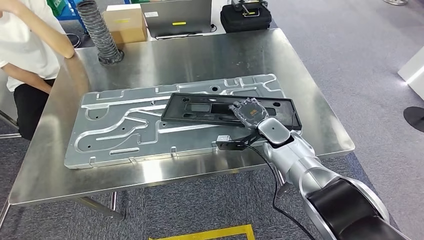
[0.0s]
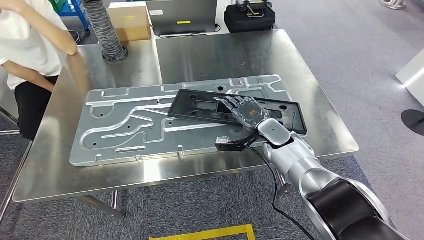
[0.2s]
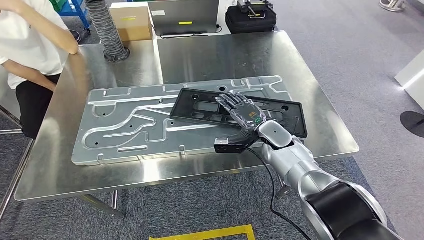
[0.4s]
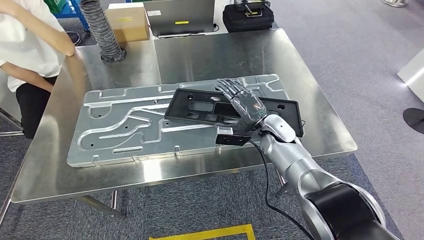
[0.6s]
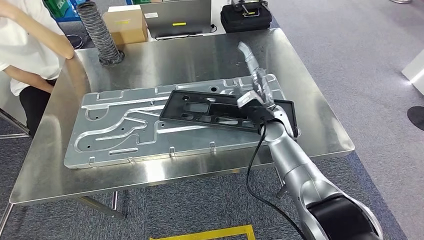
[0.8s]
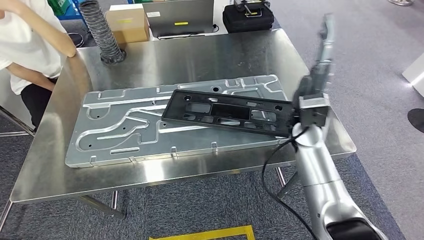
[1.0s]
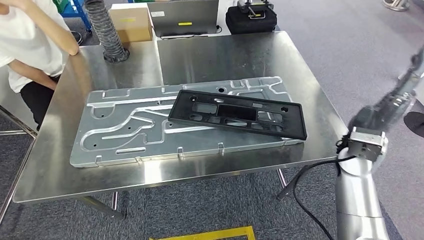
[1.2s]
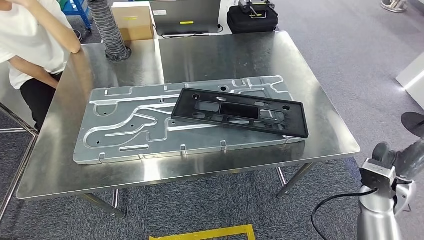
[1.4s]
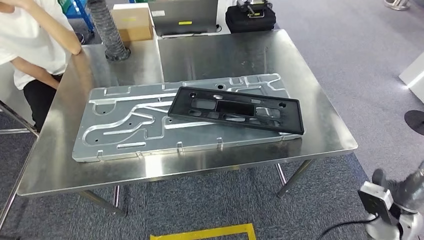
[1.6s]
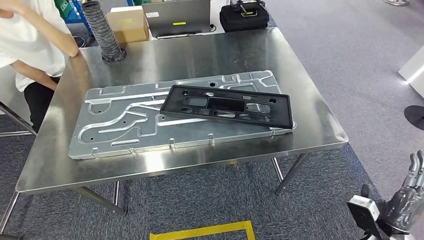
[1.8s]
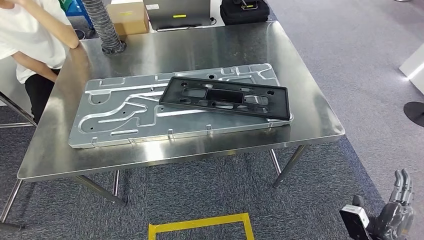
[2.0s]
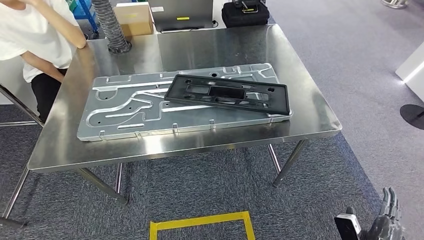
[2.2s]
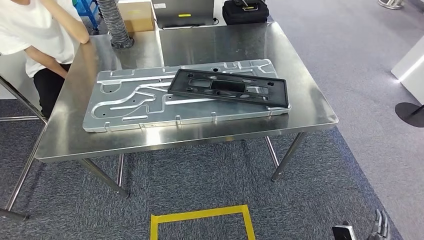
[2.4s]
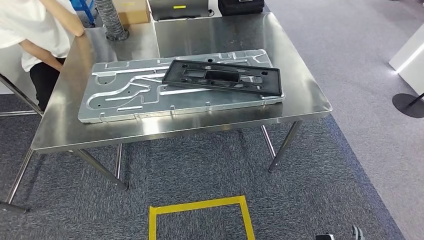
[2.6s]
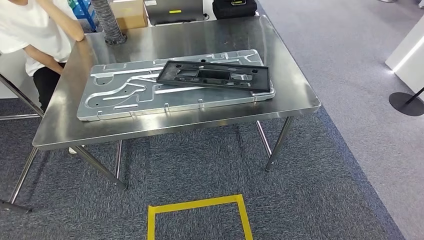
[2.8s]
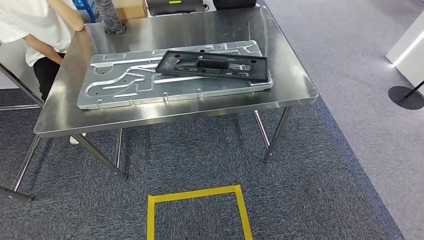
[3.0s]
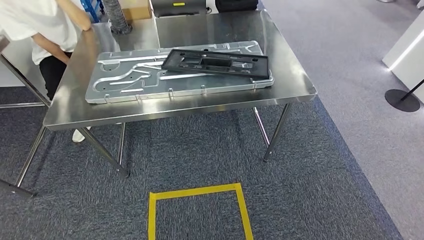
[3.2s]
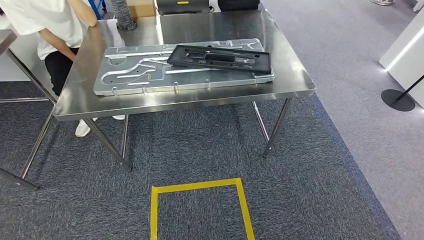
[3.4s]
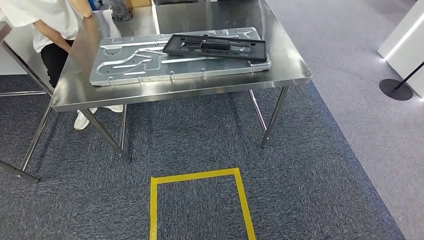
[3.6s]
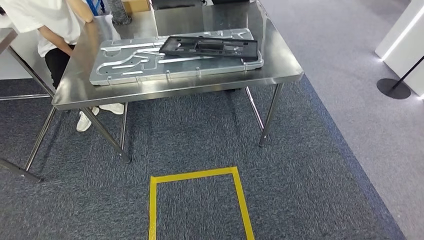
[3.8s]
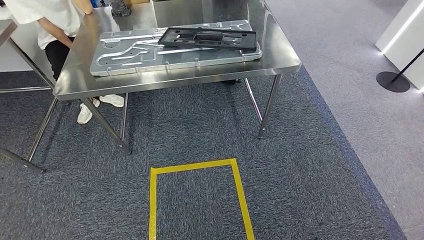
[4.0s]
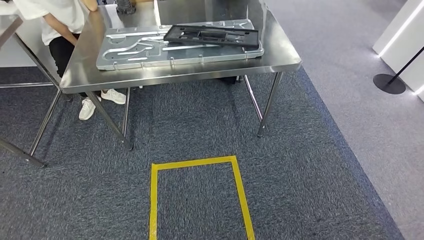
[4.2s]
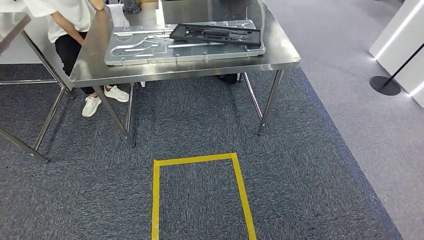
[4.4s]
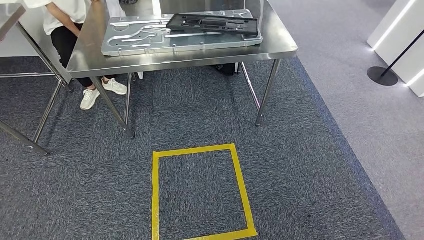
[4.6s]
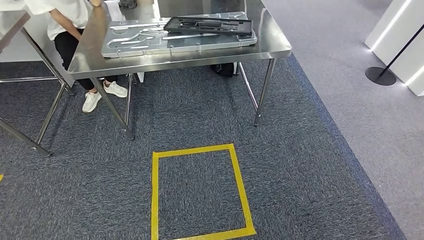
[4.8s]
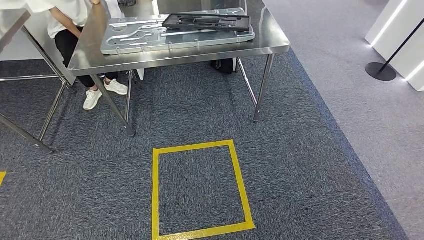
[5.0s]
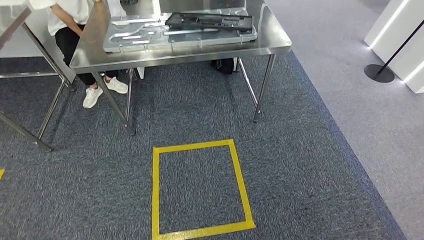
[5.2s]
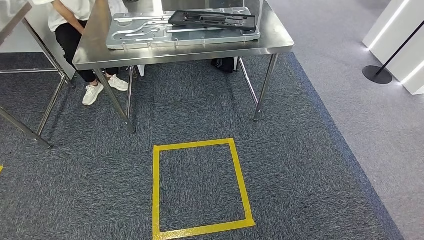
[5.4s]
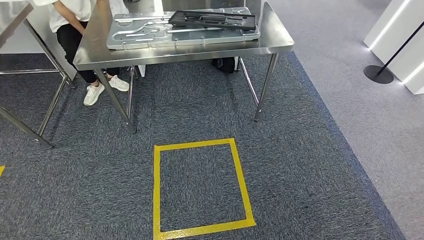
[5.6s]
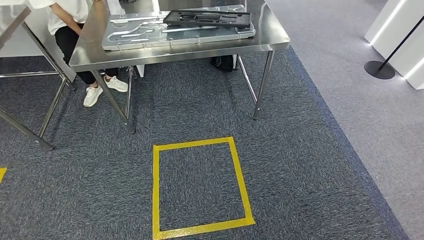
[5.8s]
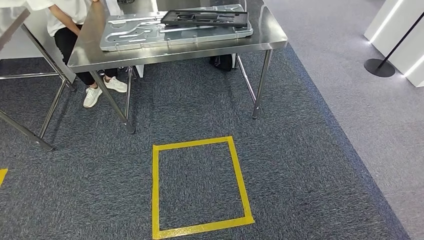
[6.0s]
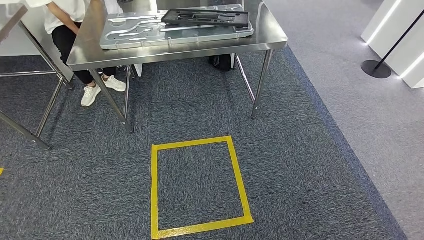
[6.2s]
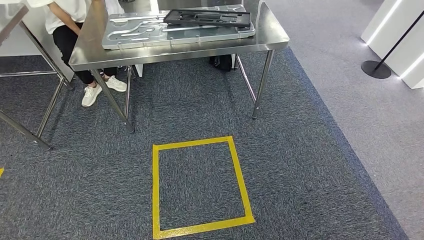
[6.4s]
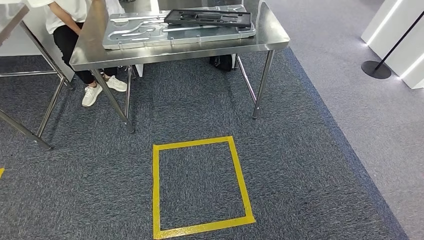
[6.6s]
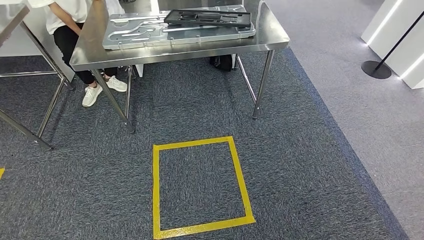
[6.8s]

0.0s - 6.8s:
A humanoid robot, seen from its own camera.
Step, 0.0s - 2.2s: Insert the large material into the corresponding slot on the workbench.
Step, 2.4s - 6.8s: Move to the initial position of the shelf.
5.4s - 6.8s: The hands make only small movements.

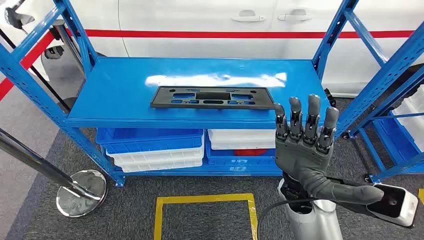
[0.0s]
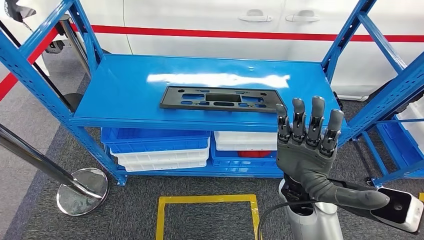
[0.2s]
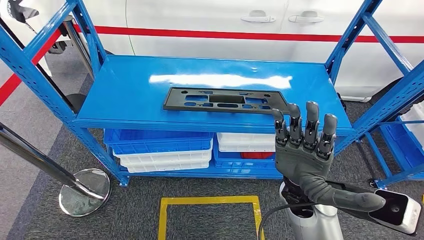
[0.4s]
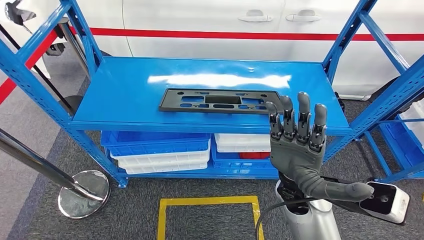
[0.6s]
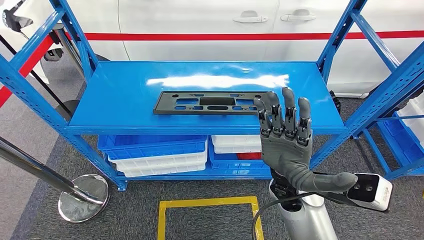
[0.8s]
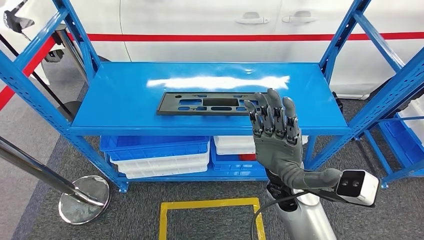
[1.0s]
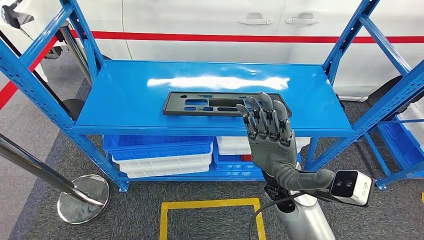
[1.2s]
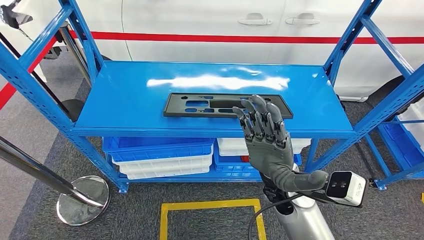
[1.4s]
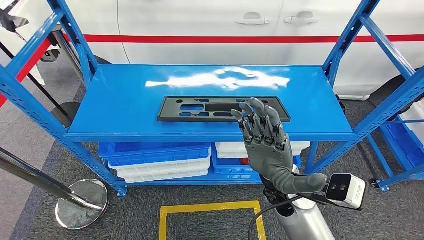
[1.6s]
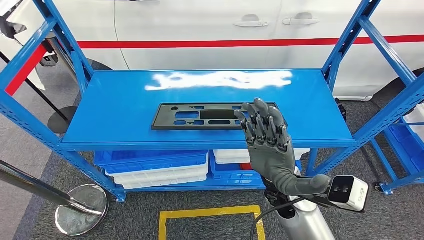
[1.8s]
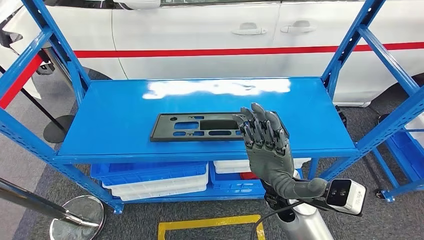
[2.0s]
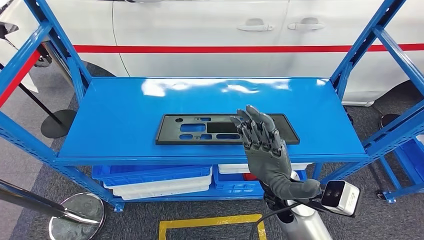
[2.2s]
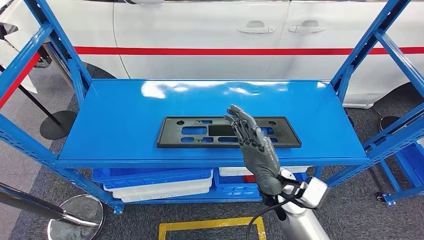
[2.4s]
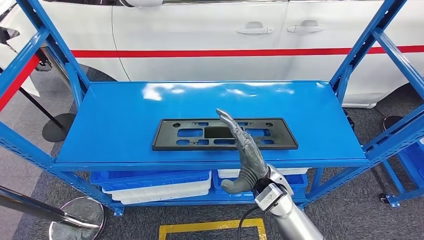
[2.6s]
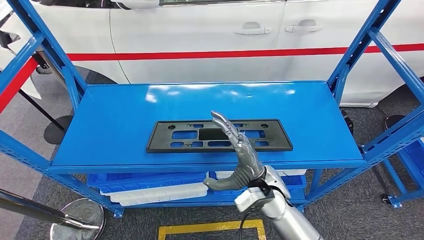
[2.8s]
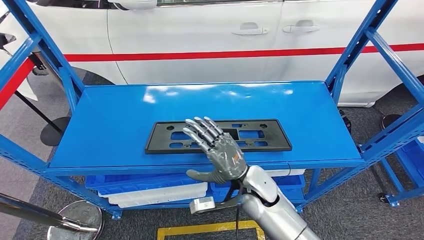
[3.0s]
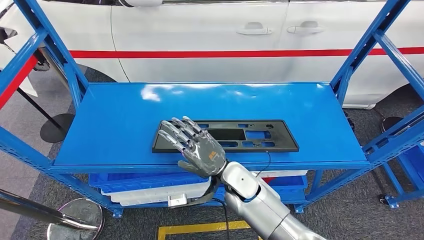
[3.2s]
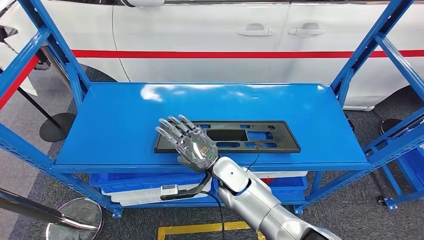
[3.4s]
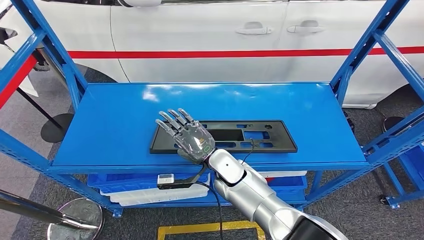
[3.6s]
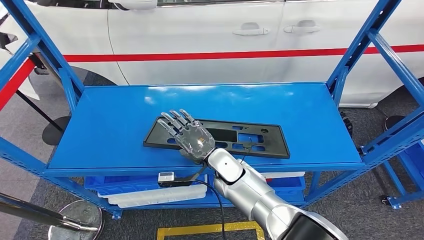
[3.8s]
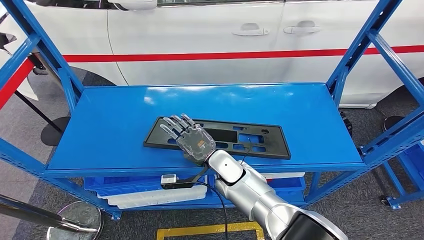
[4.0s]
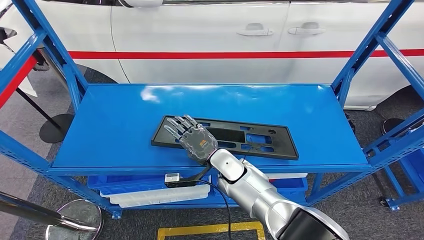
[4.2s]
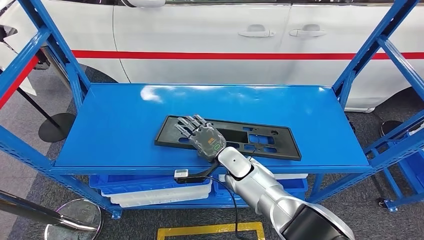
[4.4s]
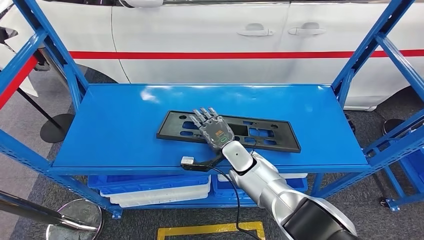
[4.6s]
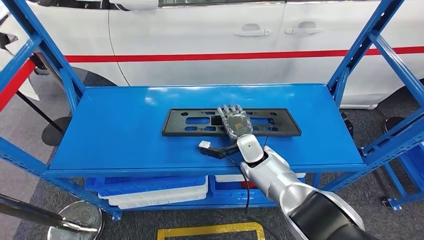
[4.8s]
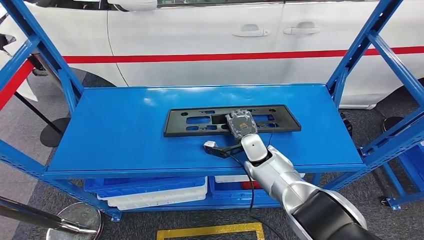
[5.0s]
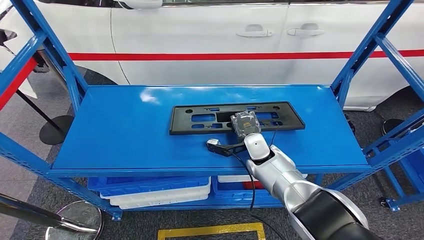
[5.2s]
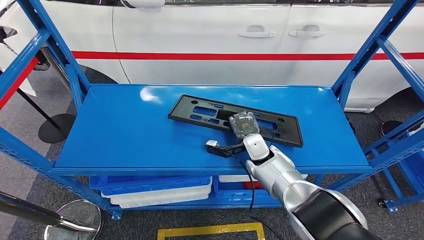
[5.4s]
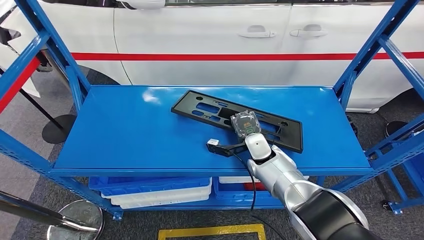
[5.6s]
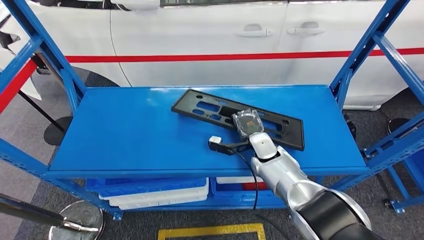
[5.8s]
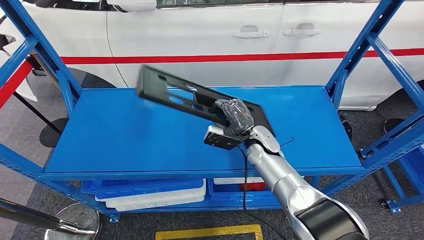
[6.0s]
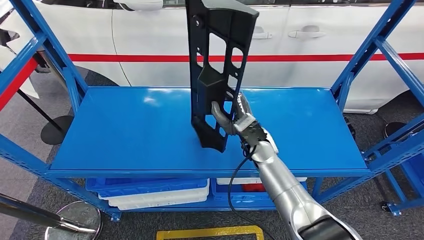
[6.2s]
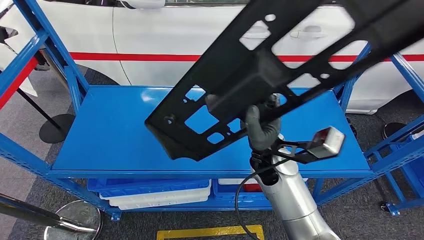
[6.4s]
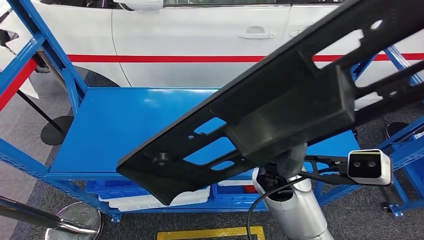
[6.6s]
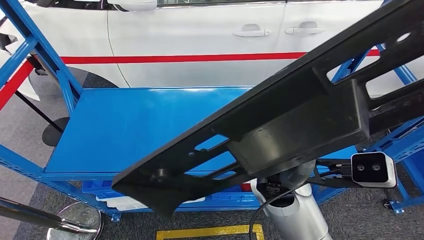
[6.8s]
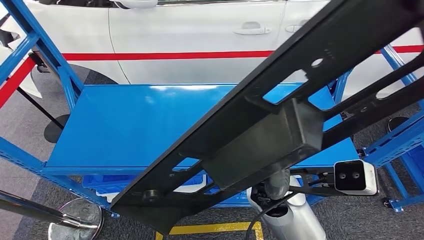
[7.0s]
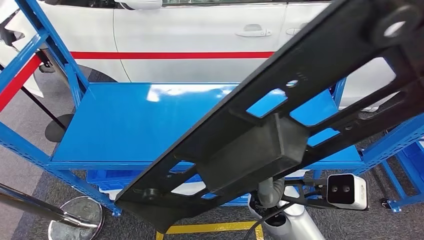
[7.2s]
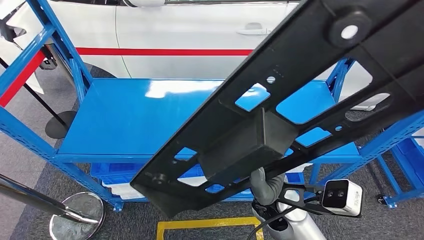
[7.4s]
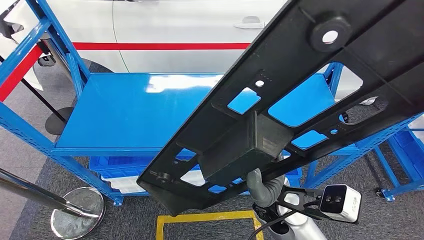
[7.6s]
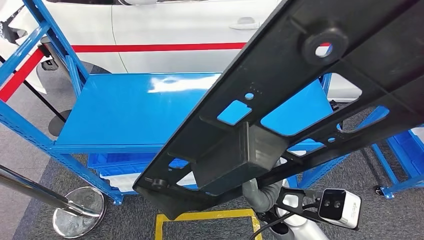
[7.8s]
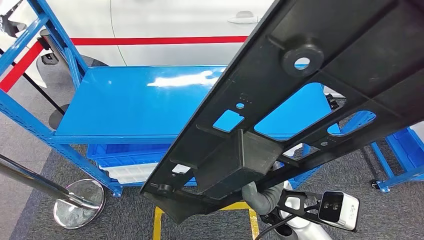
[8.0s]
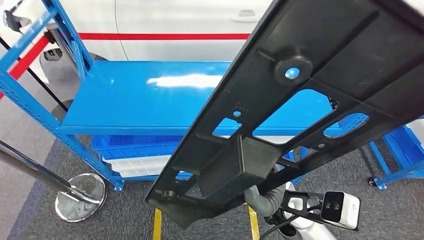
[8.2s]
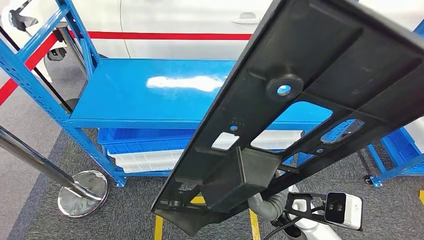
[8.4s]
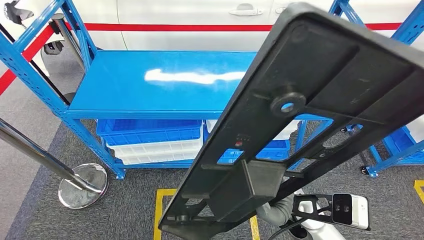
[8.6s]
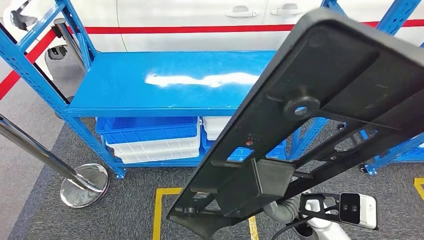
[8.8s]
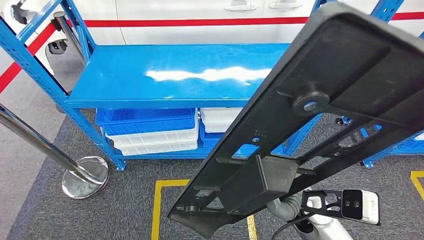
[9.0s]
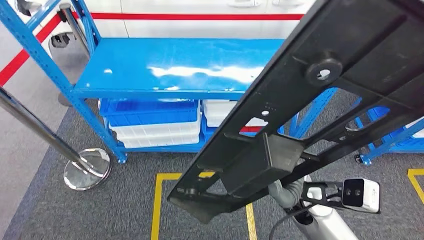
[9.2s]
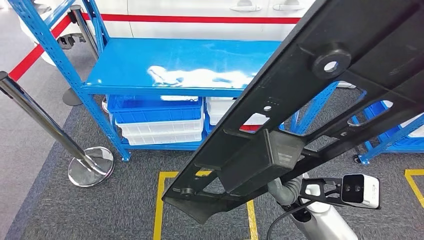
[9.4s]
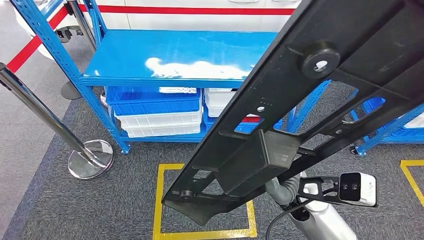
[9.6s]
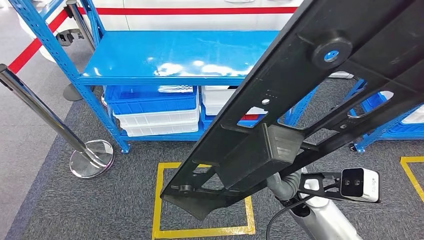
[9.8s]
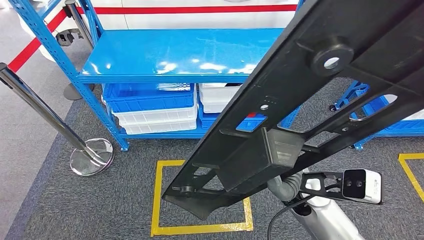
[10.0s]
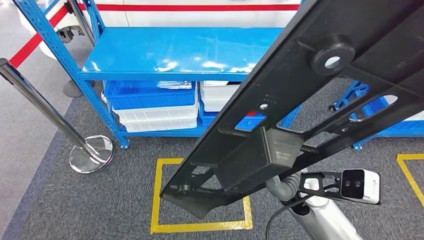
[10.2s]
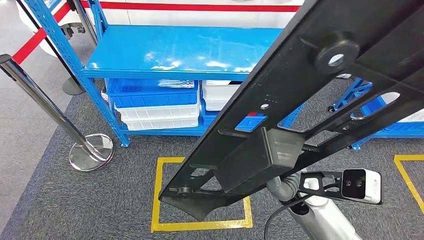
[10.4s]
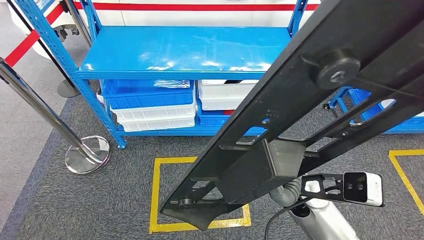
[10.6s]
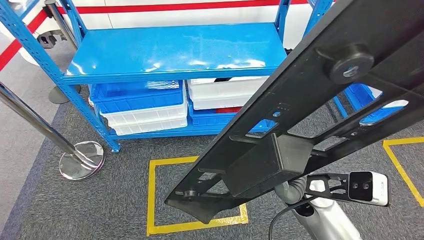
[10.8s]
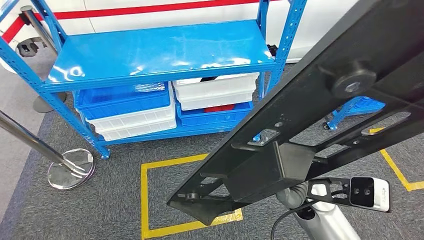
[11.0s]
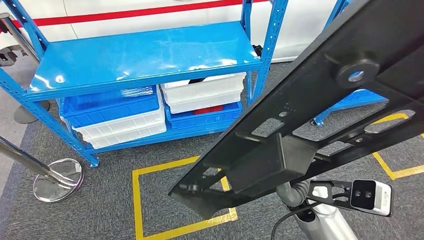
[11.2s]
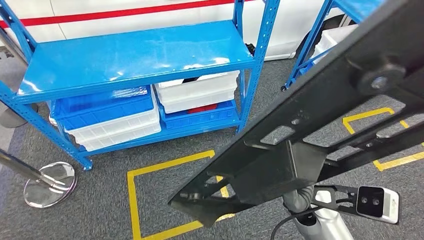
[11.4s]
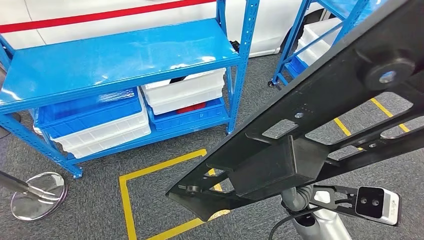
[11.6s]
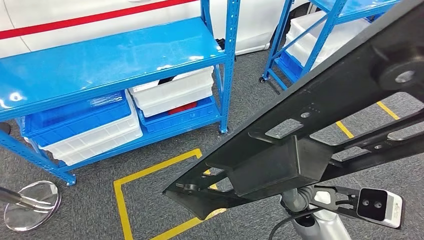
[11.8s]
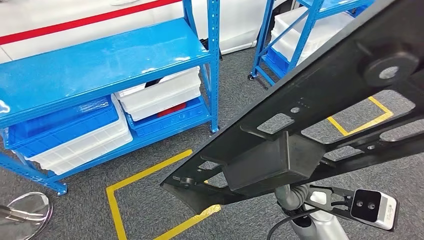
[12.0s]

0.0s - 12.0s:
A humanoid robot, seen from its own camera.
Step, 0.0s - 6.2s: Pick up the large material from the shelf.
